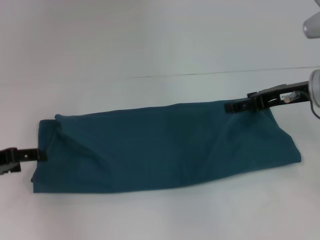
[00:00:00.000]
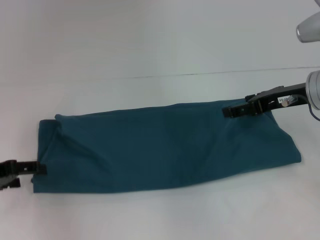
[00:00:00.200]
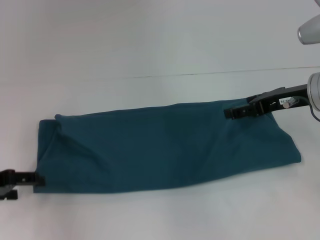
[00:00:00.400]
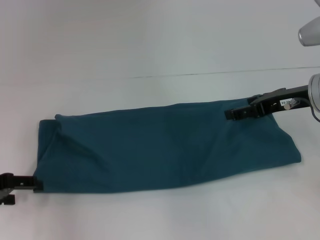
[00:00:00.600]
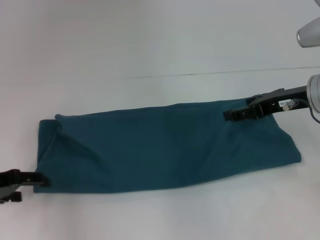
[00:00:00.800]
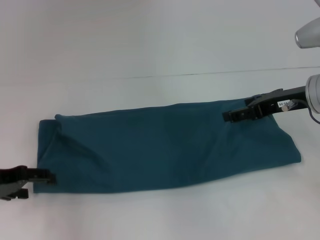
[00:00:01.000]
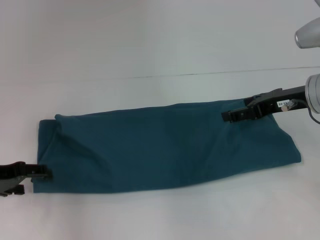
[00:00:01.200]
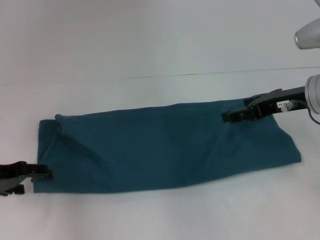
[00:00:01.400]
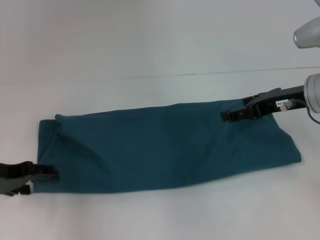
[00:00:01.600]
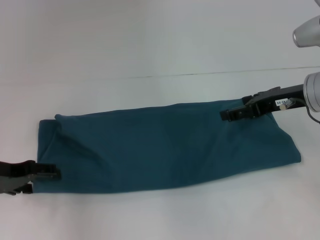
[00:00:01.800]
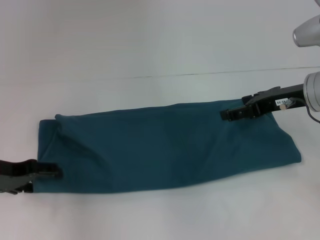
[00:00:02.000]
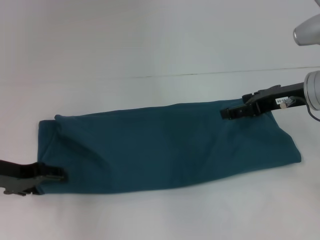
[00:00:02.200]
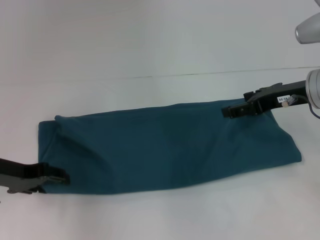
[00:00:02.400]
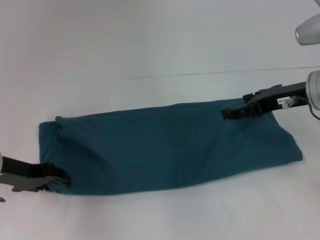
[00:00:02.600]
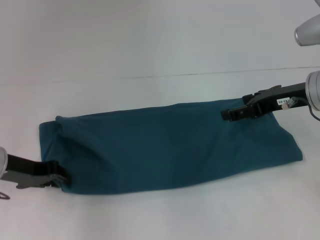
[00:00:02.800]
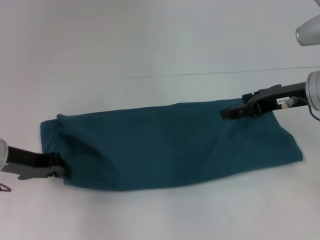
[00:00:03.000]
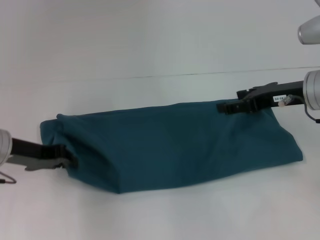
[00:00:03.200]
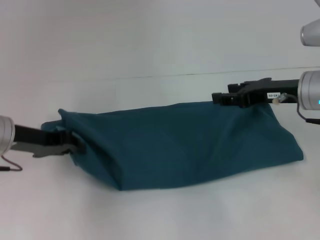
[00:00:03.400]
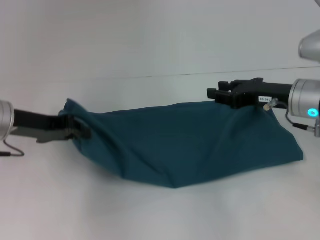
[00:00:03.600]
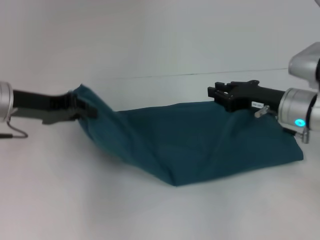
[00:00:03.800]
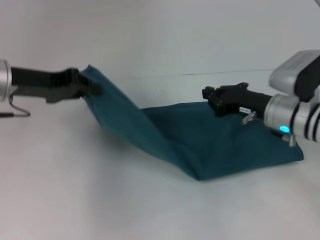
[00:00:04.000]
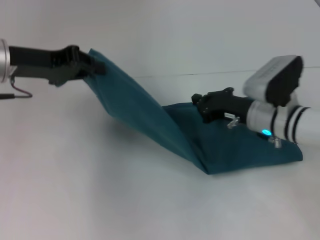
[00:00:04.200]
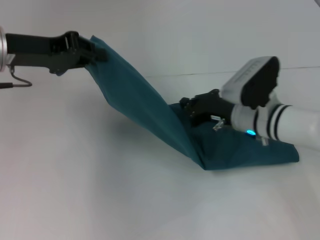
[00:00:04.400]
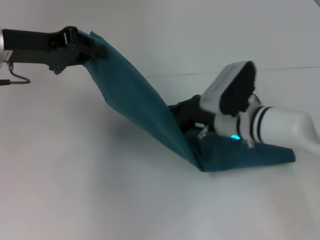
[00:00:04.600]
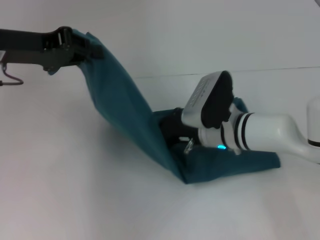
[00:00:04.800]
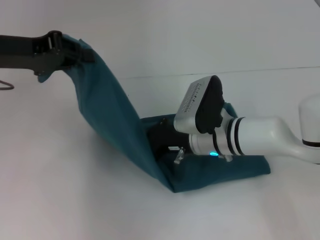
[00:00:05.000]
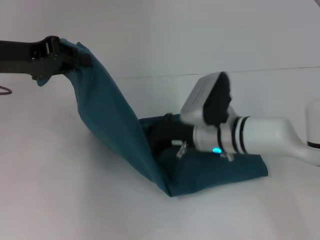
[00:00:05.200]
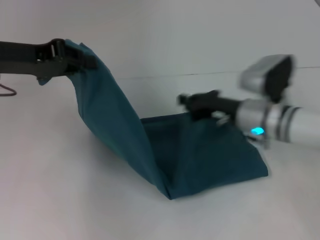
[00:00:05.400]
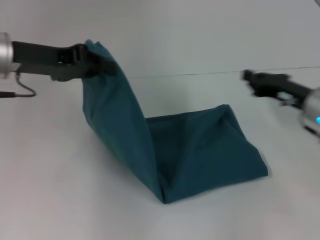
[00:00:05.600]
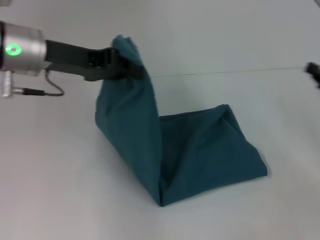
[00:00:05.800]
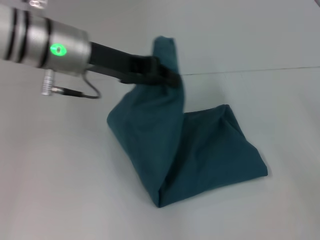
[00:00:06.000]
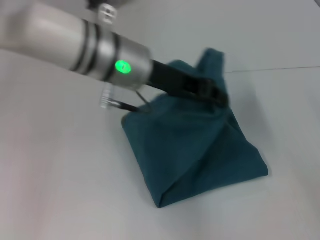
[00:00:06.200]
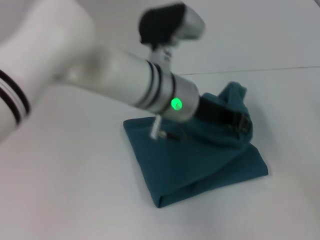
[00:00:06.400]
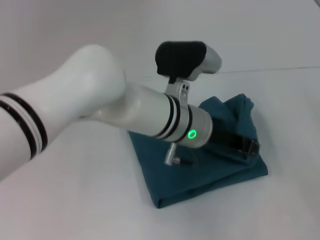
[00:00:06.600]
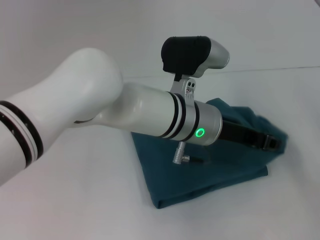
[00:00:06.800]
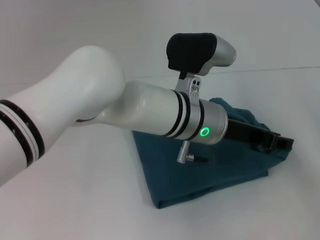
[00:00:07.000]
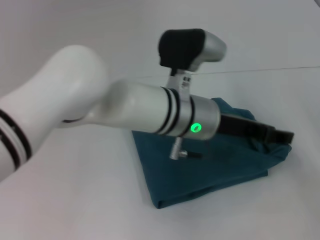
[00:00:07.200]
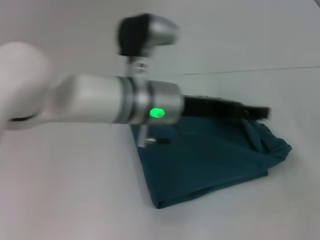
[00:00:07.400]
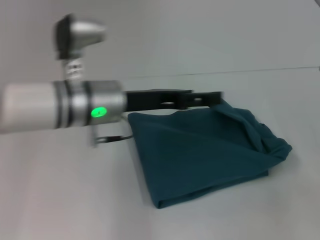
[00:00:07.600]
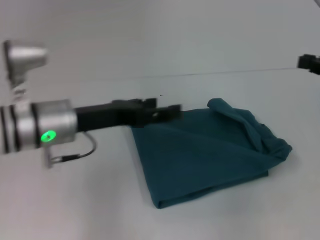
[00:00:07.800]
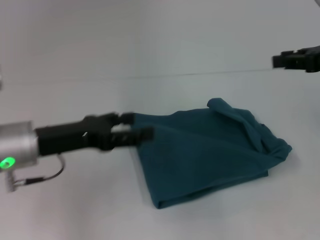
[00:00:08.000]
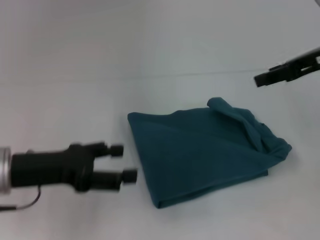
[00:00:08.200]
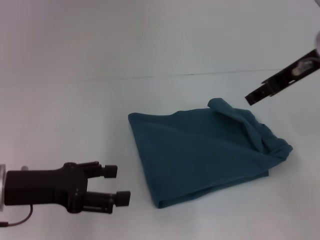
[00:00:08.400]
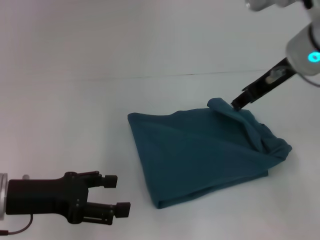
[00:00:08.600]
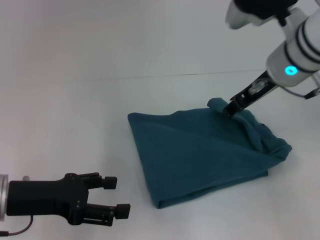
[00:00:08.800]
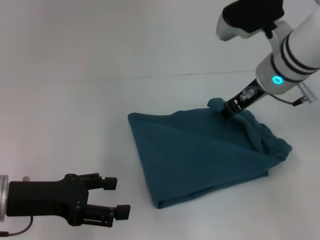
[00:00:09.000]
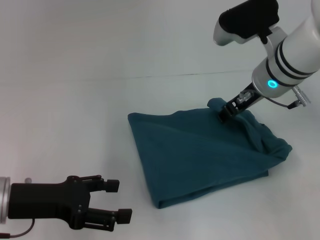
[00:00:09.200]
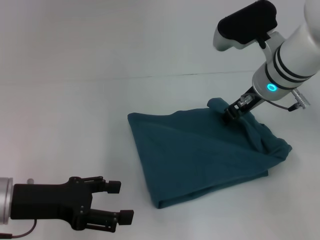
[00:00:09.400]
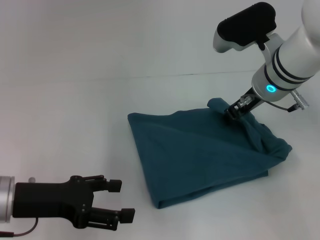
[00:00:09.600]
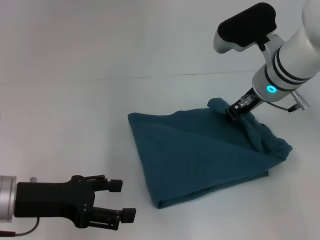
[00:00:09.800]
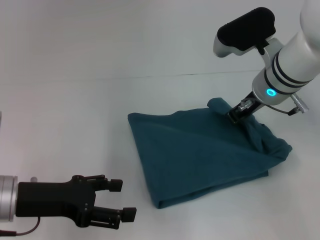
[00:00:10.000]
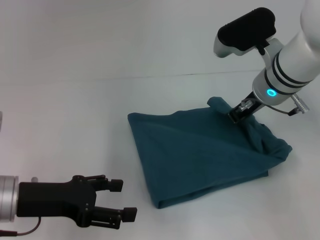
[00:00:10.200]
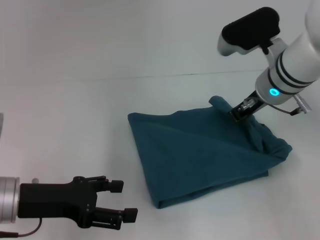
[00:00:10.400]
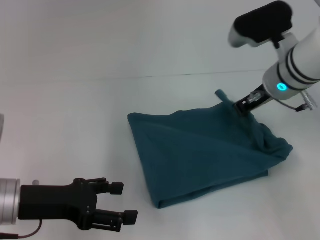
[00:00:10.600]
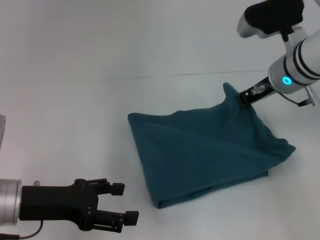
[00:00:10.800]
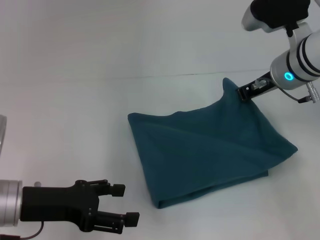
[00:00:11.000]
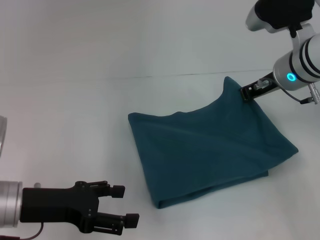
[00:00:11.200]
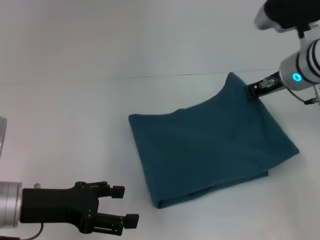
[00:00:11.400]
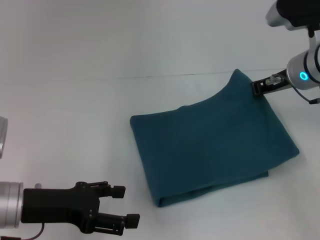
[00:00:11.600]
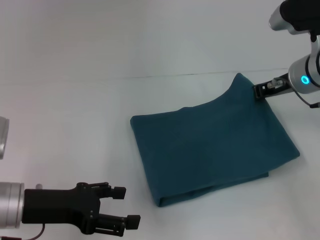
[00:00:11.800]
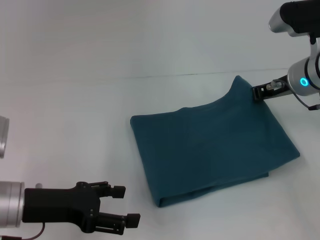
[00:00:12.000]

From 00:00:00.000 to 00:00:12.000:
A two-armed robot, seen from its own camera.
Step, from 00:00:00.000 to 00:00:05.200: Press the middle of the clothes with your right hand.
Step, from 00:00:05.400 to 00:00:07.600: Fold the clothes to the left.
From 00:00:00.000 to 00:00:01.600: The grippers make only small movements.
From 00:00:01.600 to 00:00:03.000: The left gripper closes up.
From 00:00:03.000 to 00:00:04.400: The left gripper travels upward and forward by some 15 cm. Meanwhile the right gripper heads downward and to the left, covering about 15 cm, and closes its fingers.
From 00:00:04.400 to 00:00:06.000: The left gripper moves to the right, about 10 cm, while the right gripper travels to the right and backward by some 25 cm.
From 00:00:06.000 to 00:00:07.600: The right gripper heads upward, covering roughly 5 cm; the left gripper goes approximately 10 cm downward, reaches approximately 15 cm to the right, then returns, and opens up.
From 00:00:07.600 to 00:00:09.000: The right gripper goes some 25 cm to the left and forward, and opens its fingers. The left gripper heads to the left and backward, covering approximately 15 cm.
From 00:00:09.000 to 00:00:10.400: The right gripper closes up.
From 00:00:10.400 to 00:00:12.000: The right gripper travels to the right by some 5 cm.

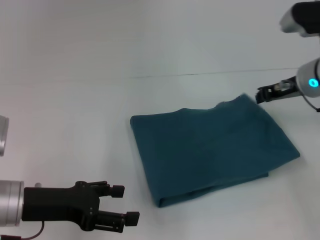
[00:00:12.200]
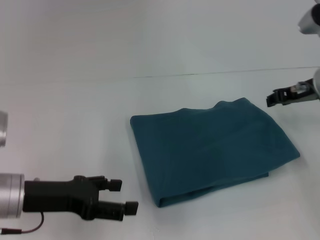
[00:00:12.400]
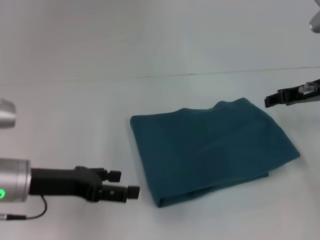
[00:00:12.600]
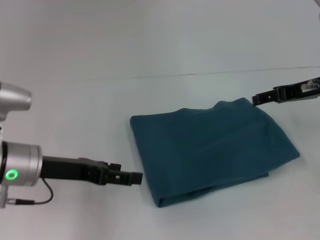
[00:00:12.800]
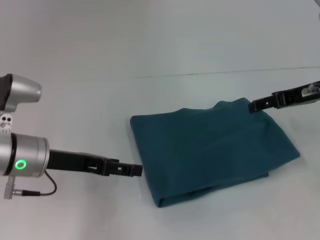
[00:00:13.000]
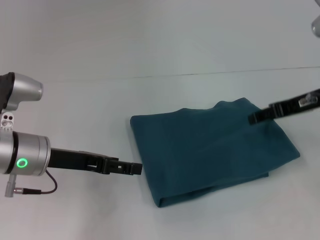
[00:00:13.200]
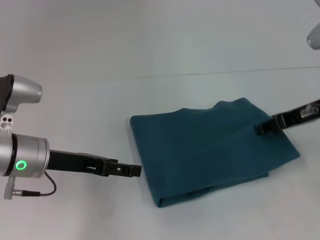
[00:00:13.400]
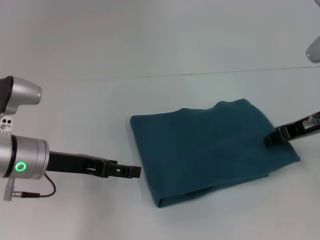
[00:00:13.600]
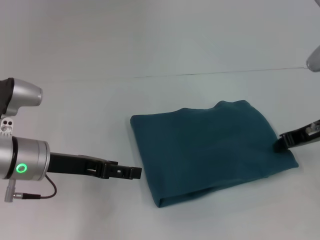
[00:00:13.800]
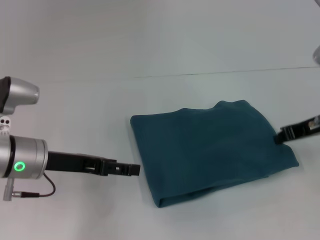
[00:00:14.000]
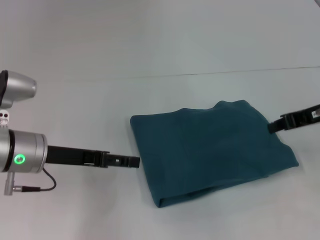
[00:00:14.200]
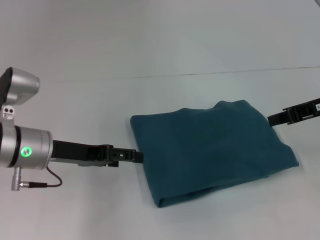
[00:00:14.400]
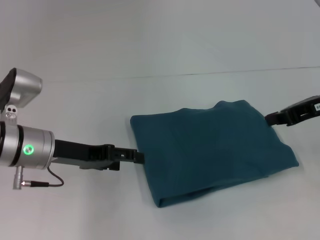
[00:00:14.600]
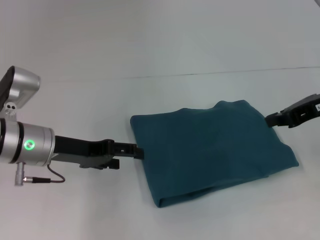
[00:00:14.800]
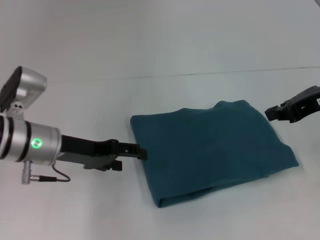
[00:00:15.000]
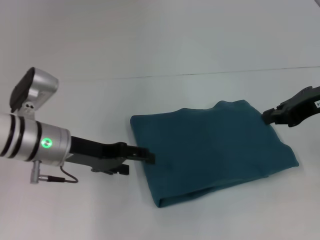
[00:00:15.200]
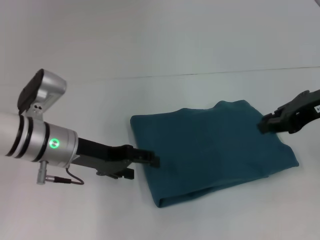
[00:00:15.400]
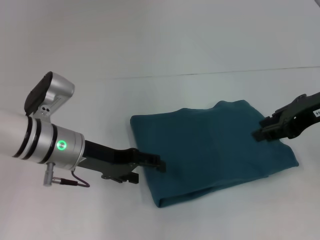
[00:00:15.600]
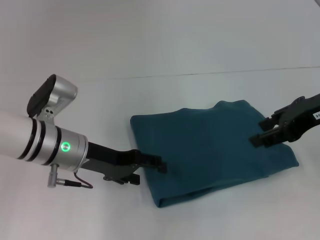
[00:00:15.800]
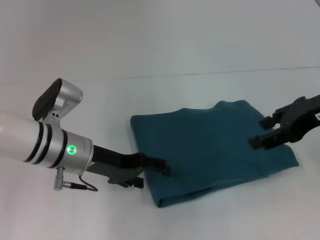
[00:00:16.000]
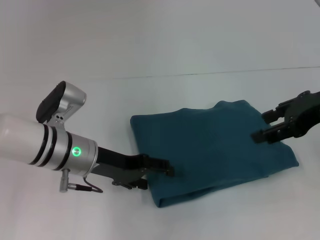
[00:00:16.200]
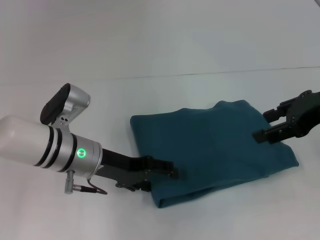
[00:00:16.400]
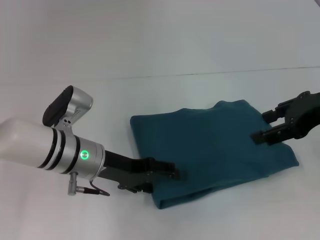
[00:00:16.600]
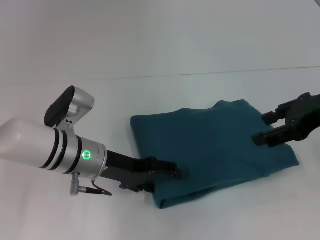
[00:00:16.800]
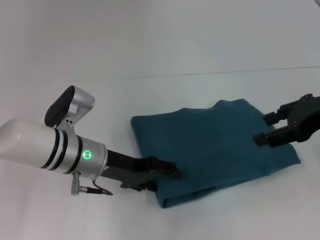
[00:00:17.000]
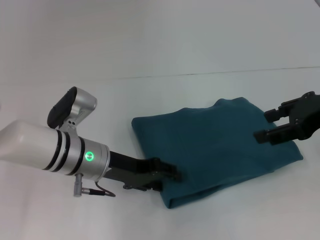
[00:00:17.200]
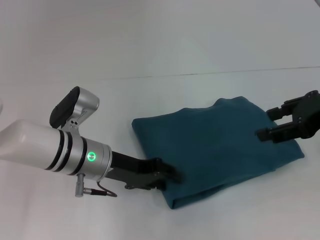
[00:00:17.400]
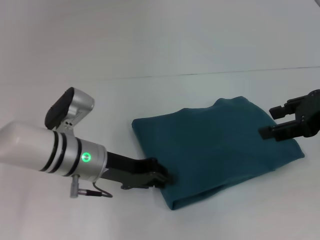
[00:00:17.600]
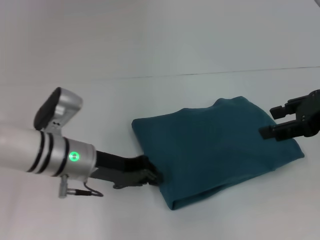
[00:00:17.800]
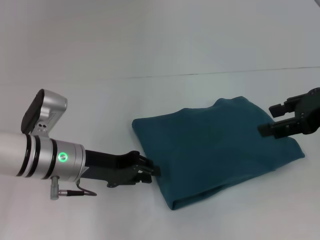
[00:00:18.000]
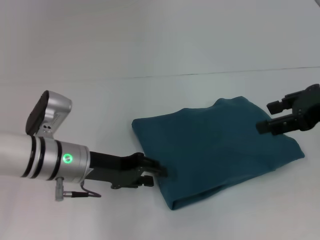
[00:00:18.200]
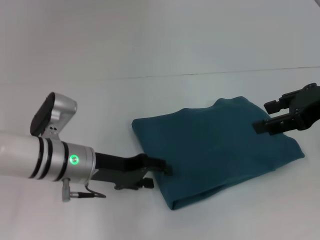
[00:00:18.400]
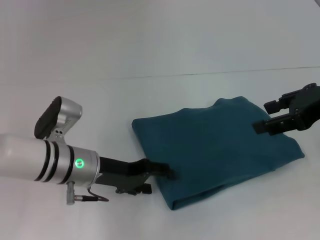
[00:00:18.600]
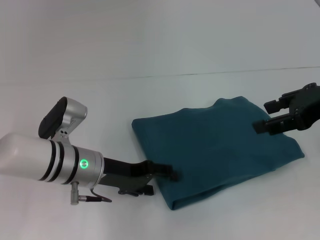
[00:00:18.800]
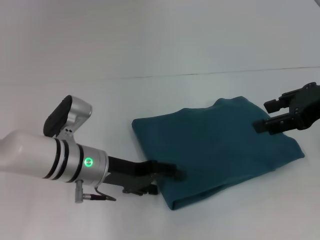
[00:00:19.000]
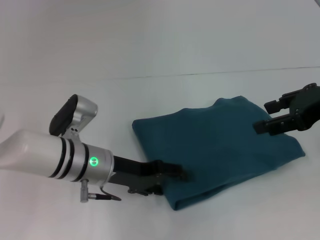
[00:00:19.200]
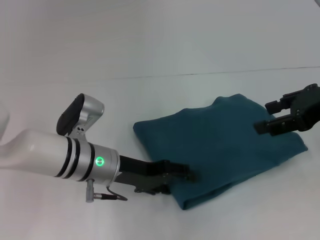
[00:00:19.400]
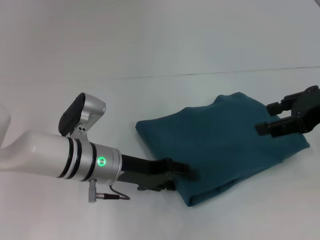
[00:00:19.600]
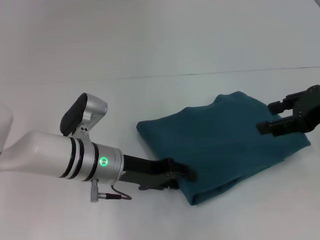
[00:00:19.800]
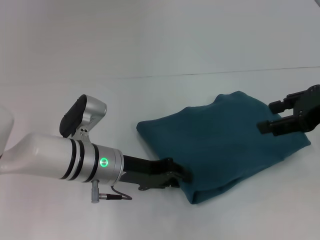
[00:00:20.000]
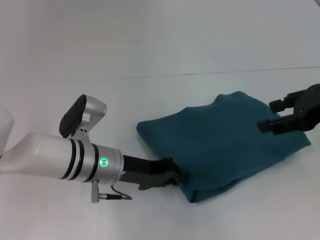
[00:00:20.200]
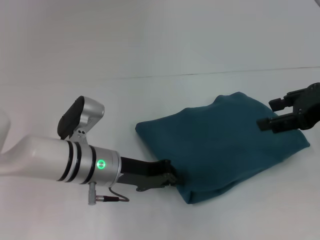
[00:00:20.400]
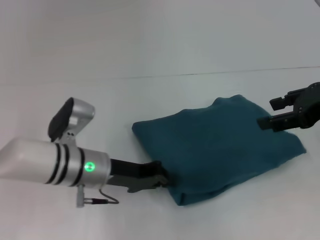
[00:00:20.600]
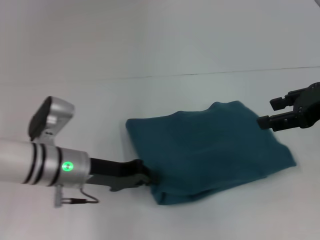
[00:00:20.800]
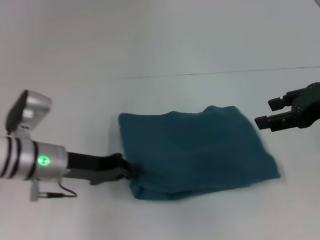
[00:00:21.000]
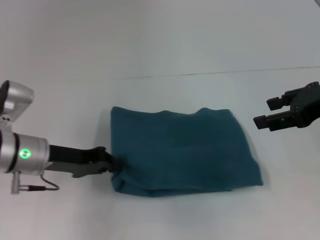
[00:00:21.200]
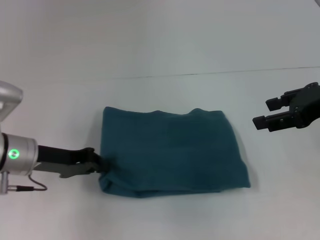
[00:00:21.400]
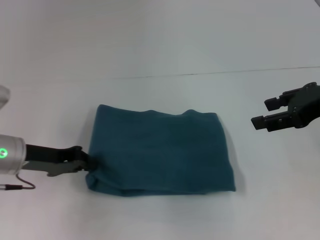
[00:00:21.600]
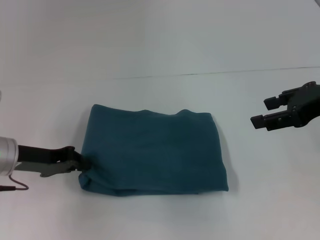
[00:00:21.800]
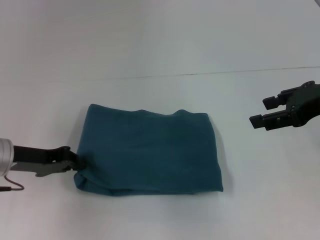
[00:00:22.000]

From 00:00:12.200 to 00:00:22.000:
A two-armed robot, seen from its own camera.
From 00:00:12.200 to 00:00:13.600: The left gripper moves forward, approximately 5 cm, while the right gripper is displaced backward by some 5 cm, and opens up.
From 00:00:13.600 to 00:00:15.000: The right gripper is displaced upward by some 5 cm, and closes its fingers.
From 00:00:15.000 to 00:00:16.400: The left gripper heads to the right, covering about 5 cm, while the right gripper opens its fingers.
From 00:00:16.400 to 00:00:17.800: The left gripper closes.
From 00:00:17.800 to 00:00:19.200: The left gripper opens up.
From 00:00:19.200 to 00:00:20.600: The left gripper closes up.
From 00:00:20.600 to 00:00:22.000: The left gripper heads to the left, covering approximately 15 cm.
